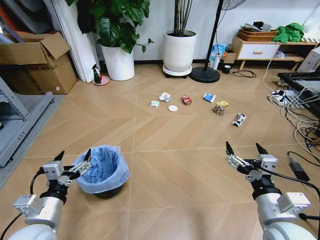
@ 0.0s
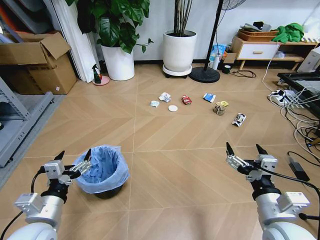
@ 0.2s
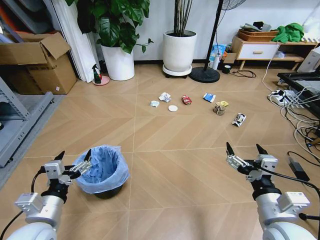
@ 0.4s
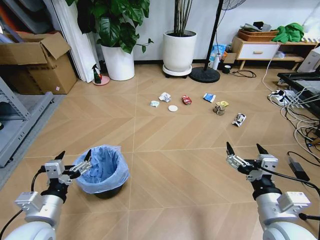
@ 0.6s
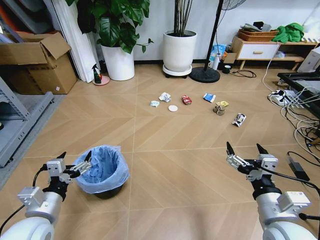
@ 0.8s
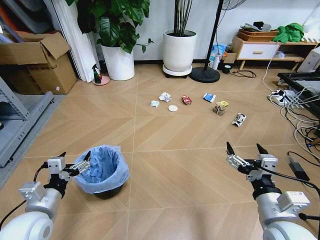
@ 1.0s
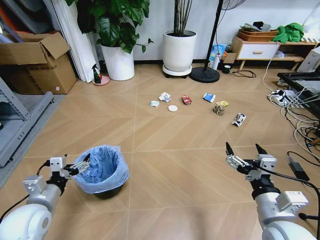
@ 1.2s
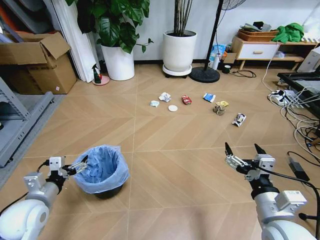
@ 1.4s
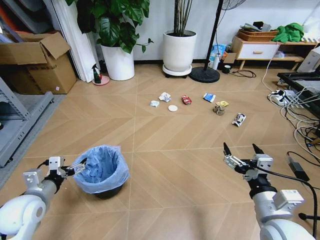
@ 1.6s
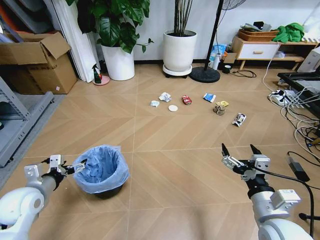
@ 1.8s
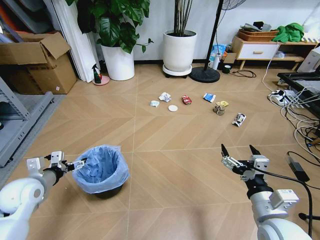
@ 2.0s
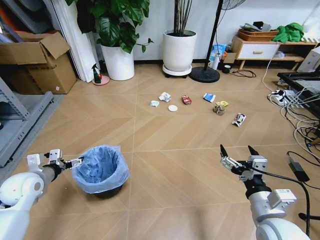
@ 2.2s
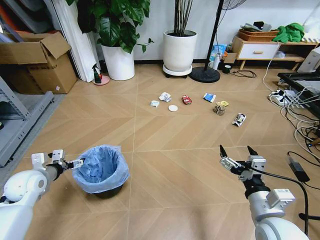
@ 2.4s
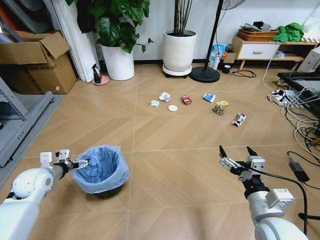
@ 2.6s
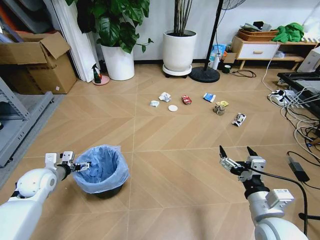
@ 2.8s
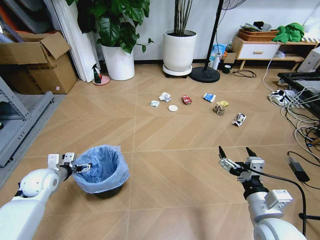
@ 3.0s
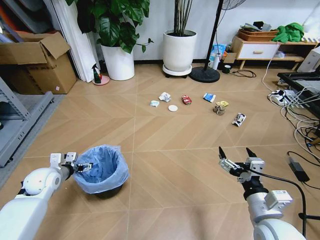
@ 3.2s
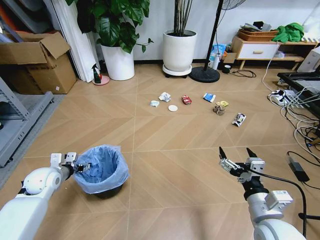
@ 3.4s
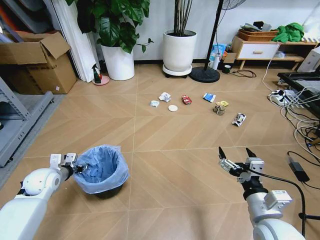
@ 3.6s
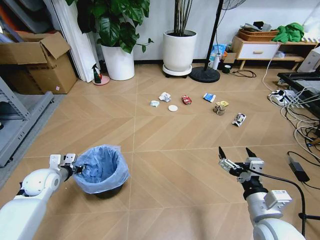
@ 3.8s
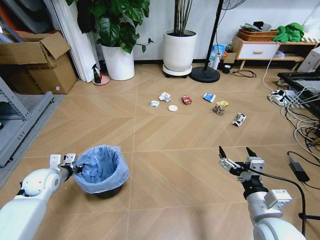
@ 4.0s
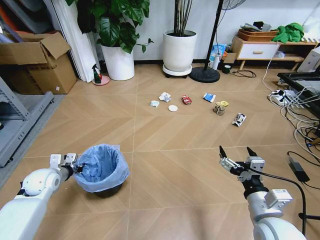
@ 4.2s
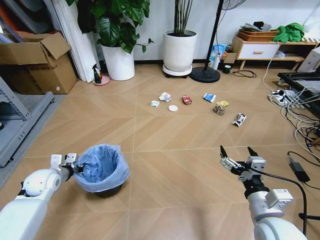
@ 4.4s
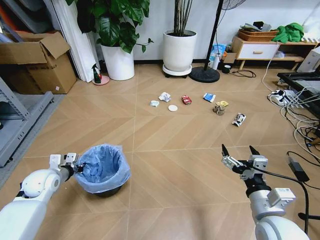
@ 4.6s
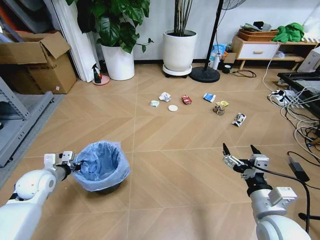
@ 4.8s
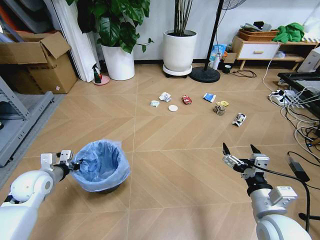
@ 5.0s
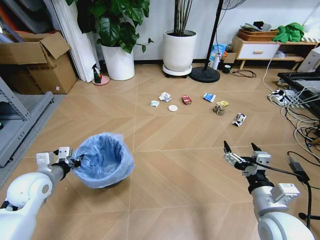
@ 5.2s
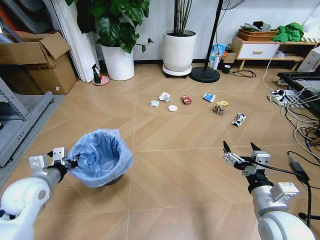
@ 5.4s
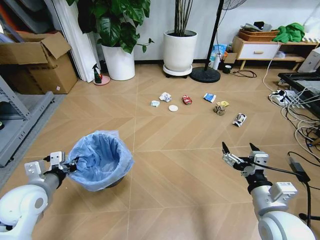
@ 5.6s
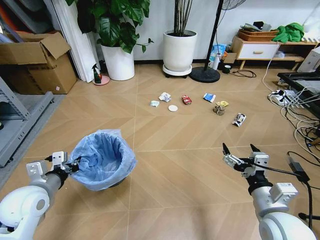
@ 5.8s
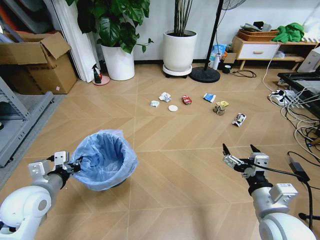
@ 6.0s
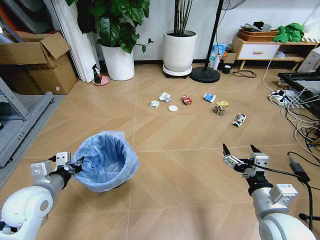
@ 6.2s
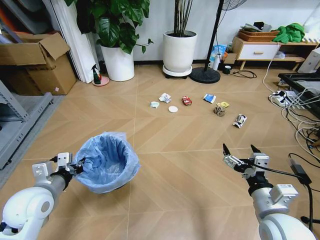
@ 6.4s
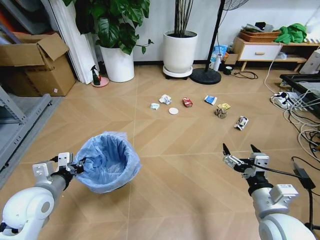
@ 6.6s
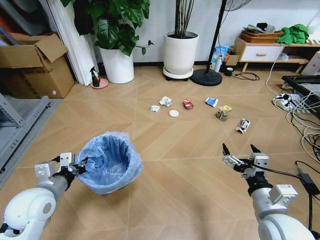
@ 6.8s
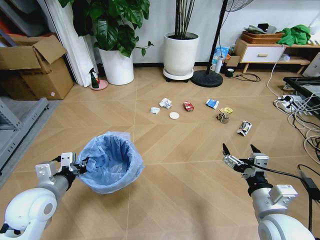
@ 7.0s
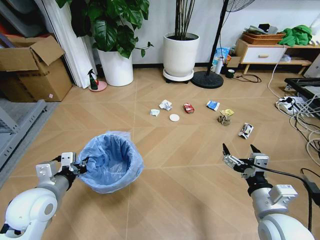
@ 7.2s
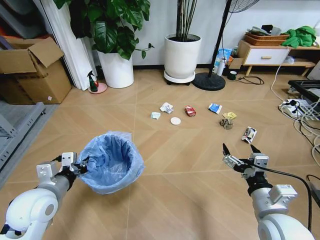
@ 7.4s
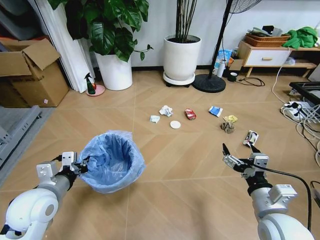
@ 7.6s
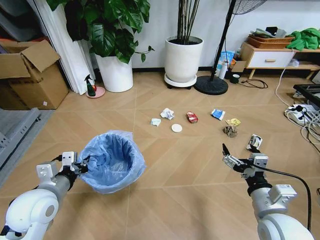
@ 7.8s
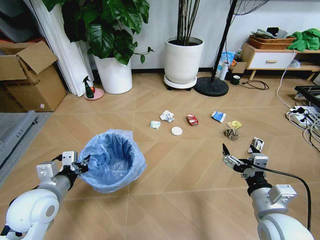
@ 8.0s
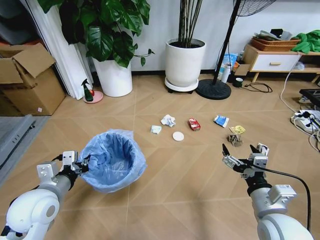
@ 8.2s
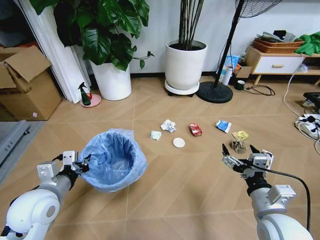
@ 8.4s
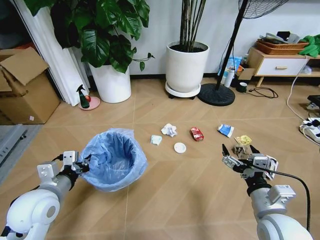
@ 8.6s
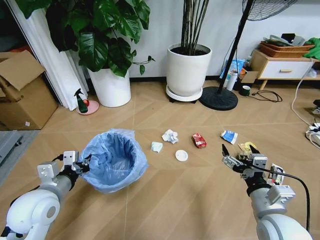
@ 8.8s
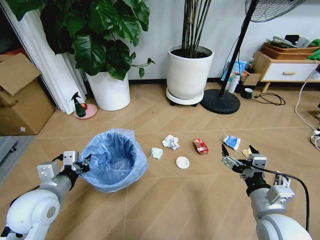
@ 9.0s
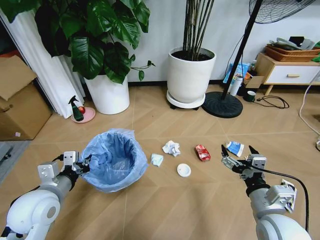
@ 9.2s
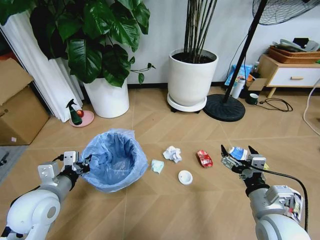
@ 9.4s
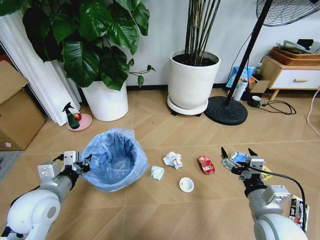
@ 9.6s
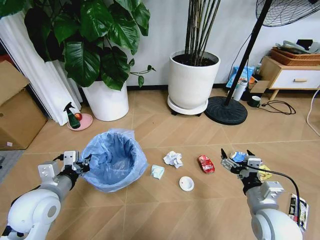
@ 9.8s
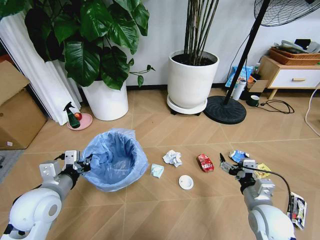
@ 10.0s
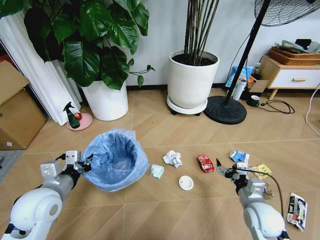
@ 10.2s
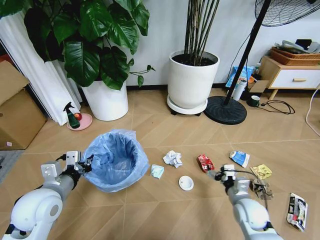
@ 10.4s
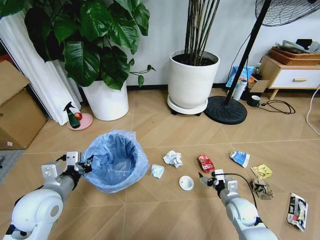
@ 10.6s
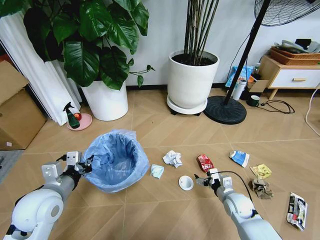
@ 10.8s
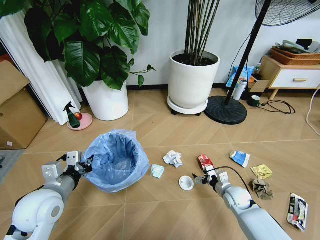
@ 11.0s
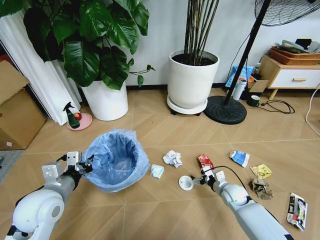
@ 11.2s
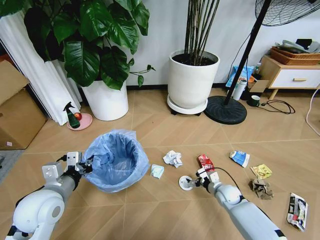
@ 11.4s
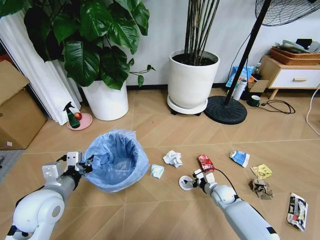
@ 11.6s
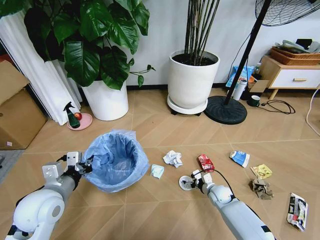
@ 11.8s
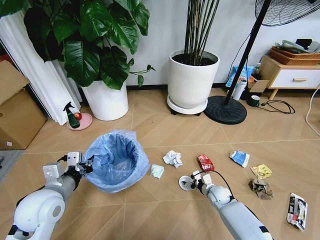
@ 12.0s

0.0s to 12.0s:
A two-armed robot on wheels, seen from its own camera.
Task of the whole recording: Pick up the trash bin and place the garbage on the floor into it.
1.6s to 3.0s: The left gripper travels forward by about 10 cm.
3.0s to 4.4s: The left gripper closes.
4.4s to 6.0s: The left gripper moves backward, upward and to the right, roughly 15 cm.
9.0s to 10.4s: The right gripper travels downward and forward by some 15 cm.
10.4s to 12.0s: The right gripper goes about 15 cm downward and forward.

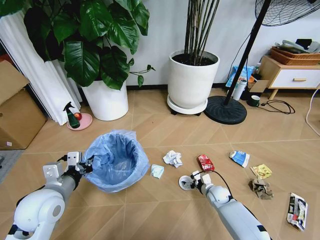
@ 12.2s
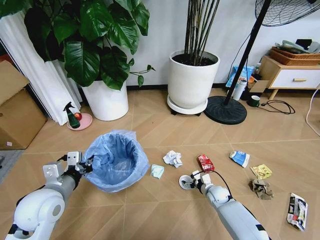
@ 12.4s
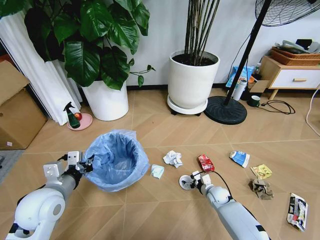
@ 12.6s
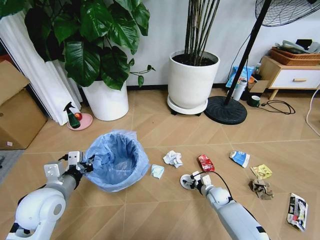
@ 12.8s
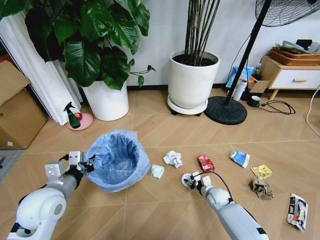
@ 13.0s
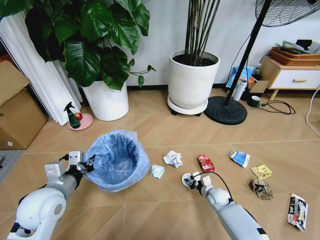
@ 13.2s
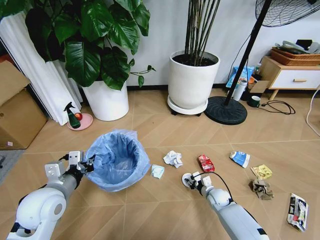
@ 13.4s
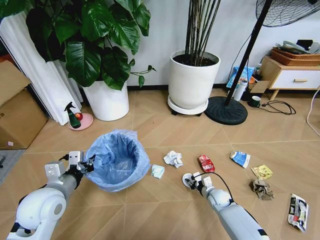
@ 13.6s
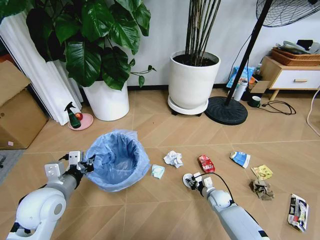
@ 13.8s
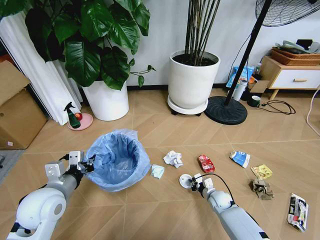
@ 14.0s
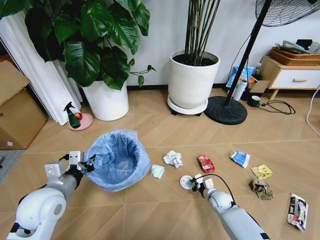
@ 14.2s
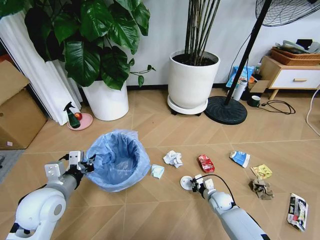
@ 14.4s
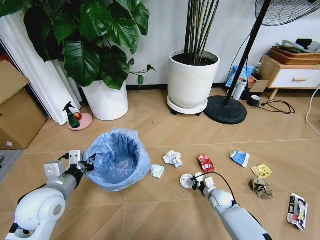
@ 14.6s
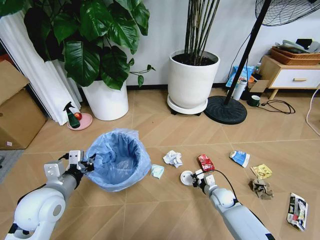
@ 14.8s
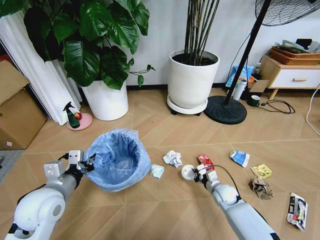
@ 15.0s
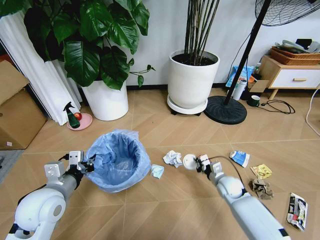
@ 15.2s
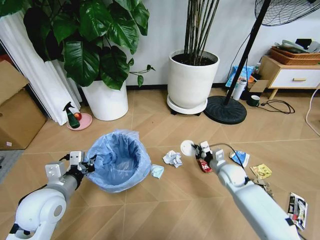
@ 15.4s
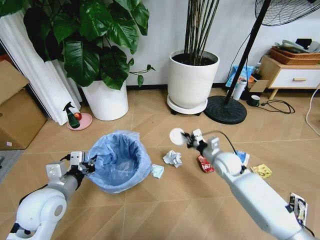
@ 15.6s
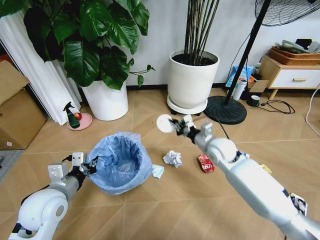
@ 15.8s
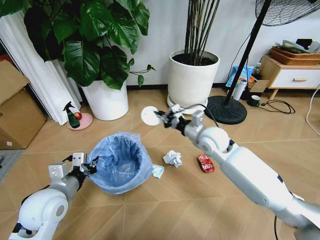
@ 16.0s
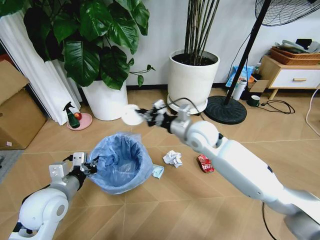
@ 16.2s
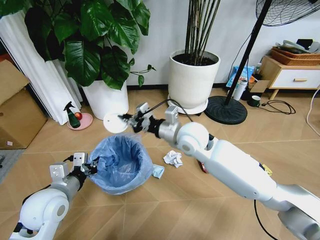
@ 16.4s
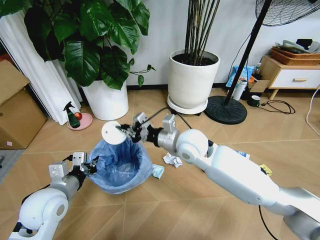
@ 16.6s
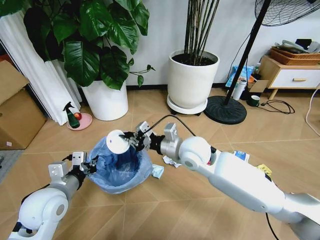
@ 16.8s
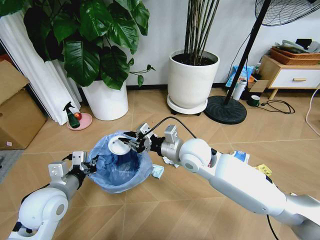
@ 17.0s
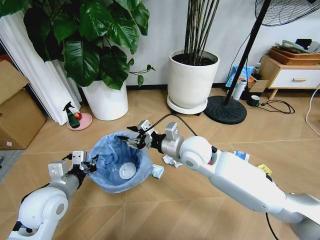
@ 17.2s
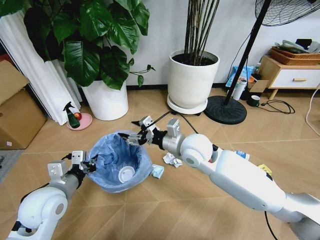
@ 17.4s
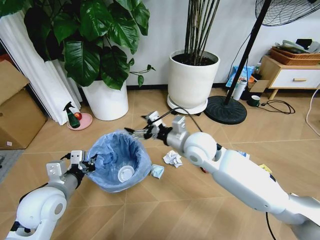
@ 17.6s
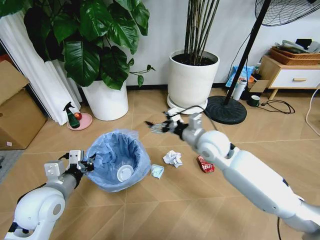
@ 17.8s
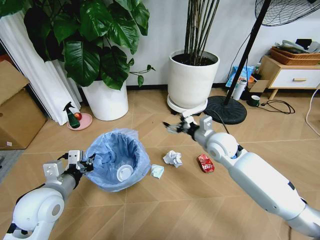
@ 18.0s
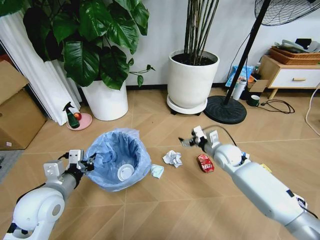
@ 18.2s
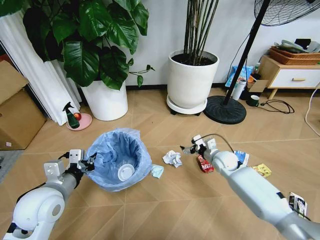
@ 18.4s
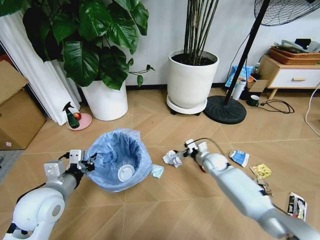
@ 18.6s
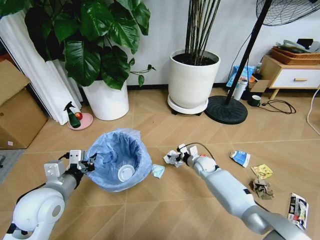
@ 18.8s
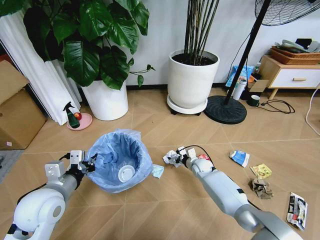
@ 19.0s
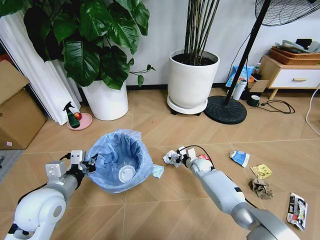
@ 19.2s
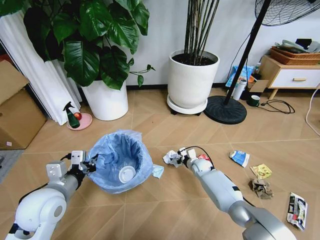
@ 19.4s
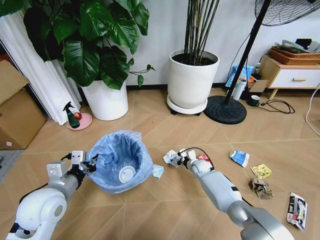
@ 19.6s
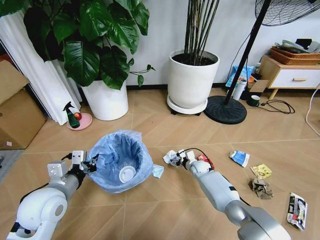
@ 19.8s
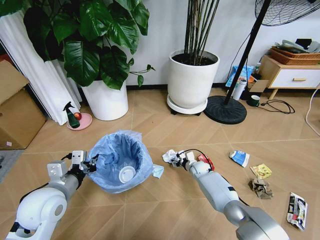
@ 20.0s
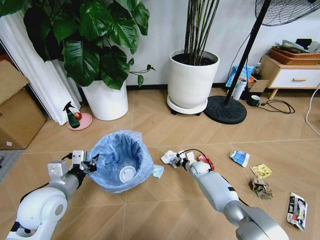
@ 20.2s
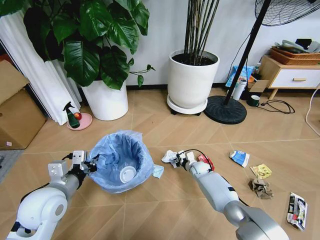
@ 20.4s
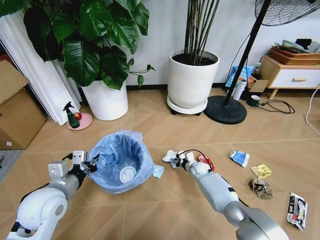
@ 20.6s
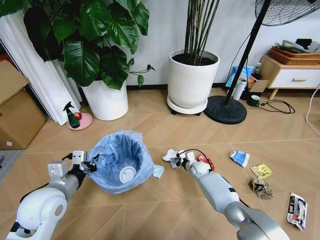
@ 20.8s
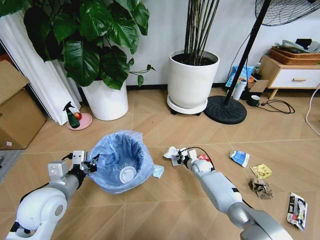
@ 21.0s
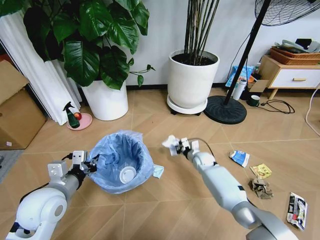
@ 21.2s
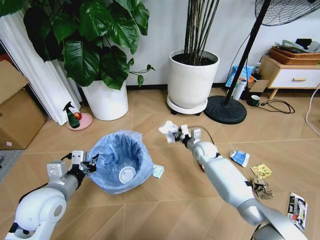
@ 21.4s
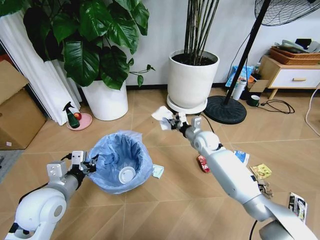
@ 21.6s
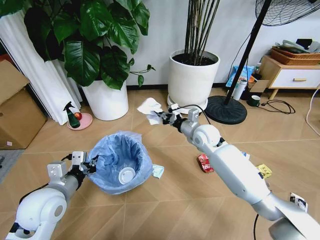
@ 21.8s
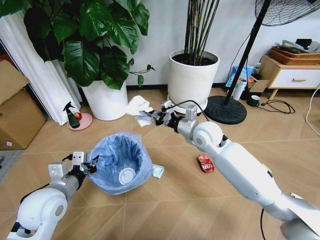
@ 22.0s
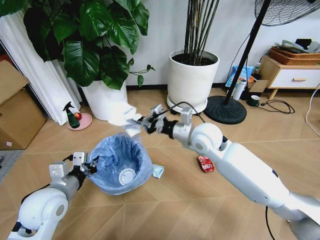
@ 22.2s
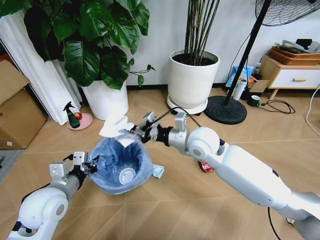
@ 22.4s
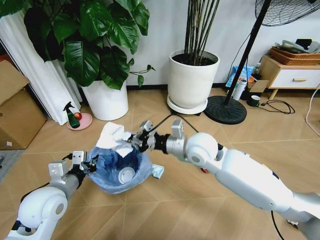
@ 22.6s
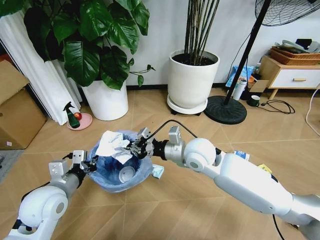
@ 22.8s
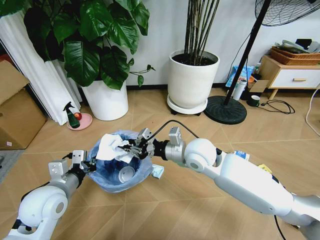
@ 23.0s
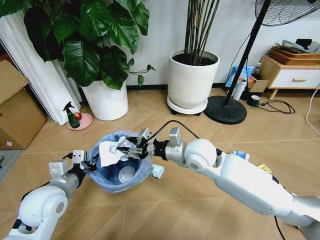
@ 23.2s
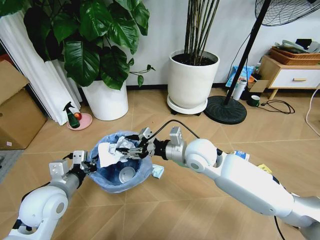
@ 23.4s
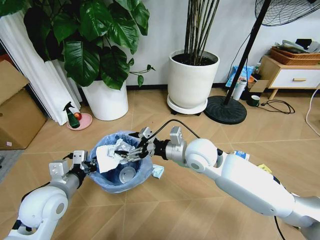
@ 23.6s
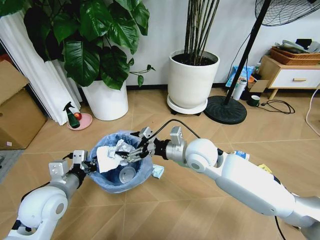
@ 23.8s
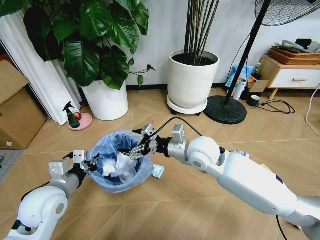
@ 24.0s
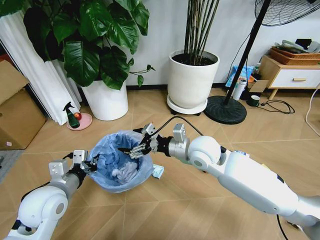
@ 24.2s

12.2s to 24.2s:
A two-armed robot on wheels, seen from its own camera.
Task of the whole recording: Pick up the trash bin and place the garbage on the floor into it.
12.2s to 13.8s: The right gripper closes its fingers.
13.8s to 15.2s: The right gripper is displaced upward by approximately 10 cm.
15.2s to 16.6s: The right gripper travels upward and to the left by some 30 cm.
16.6s to 18.2s: The right gripper travels to the right and downward by roughly 20 cm, and opens its fingers.
18.2s to 19.8s: The right gripper is displaced downward by about 20 cm.
19.8s to 21.2s: The right gripper moves upward, about 5 cm, and closes its fingers.
21.2s to 22.6s: The right gripper travels upward and backward by roughly 30 cm.
22.6s to 24.2s: The right gripper opens.
